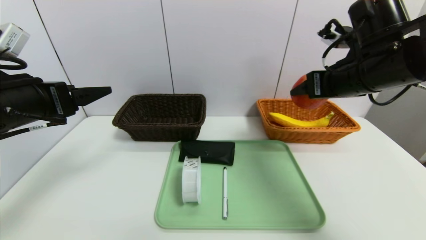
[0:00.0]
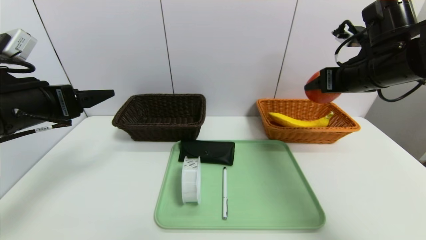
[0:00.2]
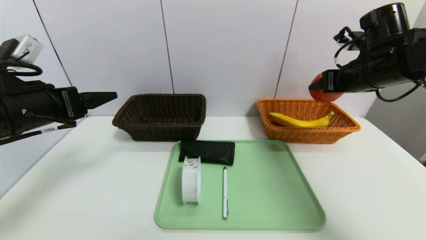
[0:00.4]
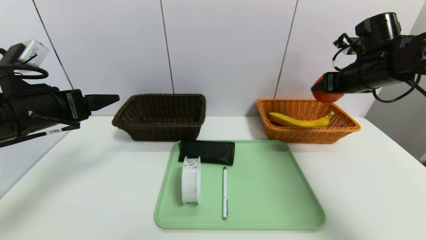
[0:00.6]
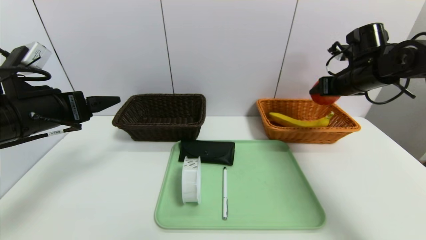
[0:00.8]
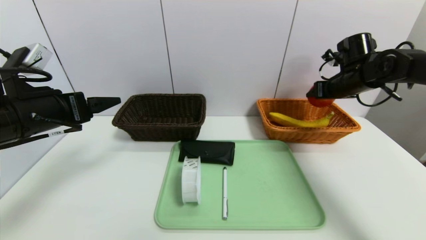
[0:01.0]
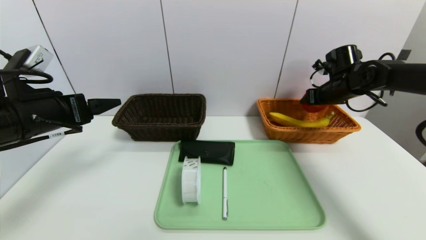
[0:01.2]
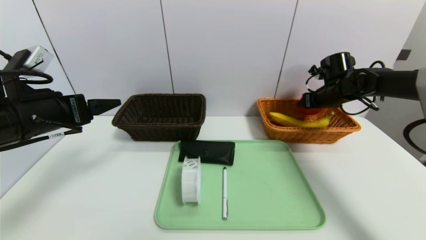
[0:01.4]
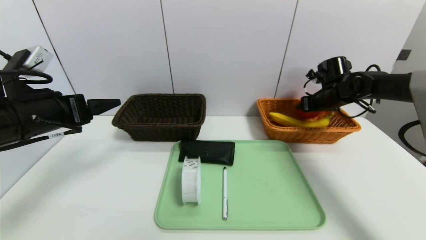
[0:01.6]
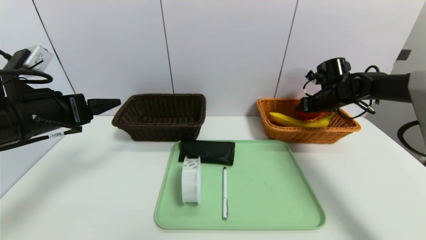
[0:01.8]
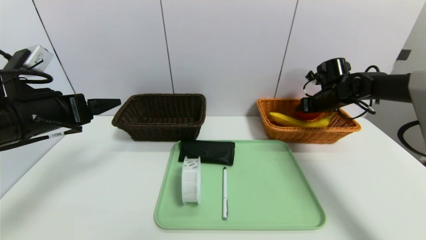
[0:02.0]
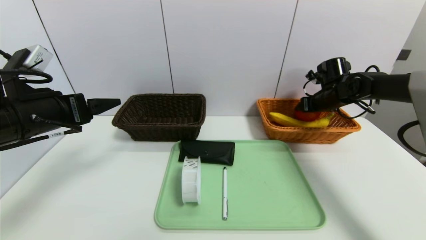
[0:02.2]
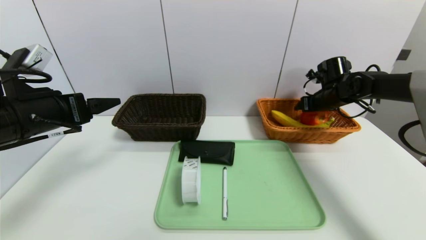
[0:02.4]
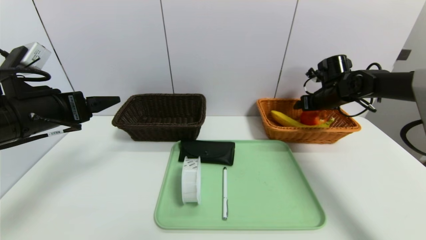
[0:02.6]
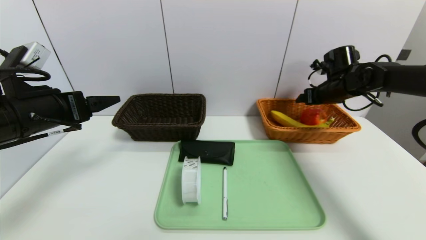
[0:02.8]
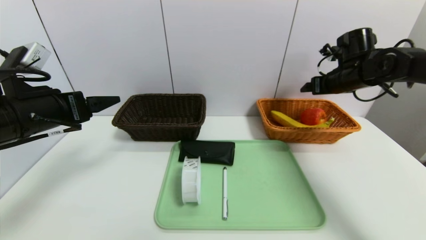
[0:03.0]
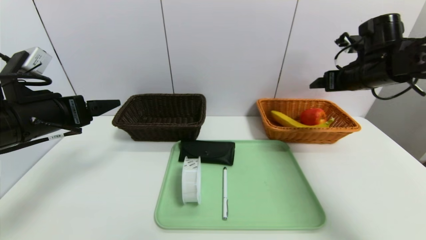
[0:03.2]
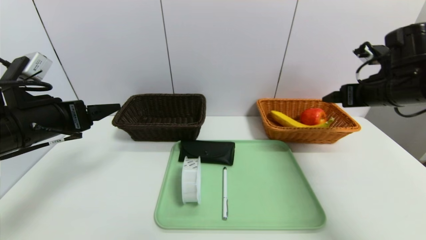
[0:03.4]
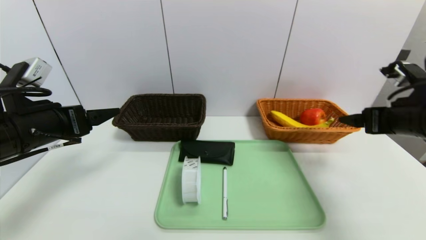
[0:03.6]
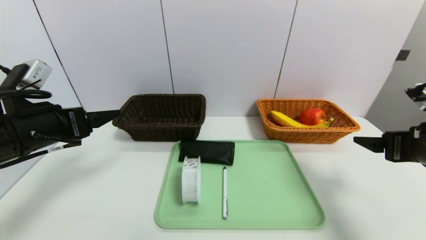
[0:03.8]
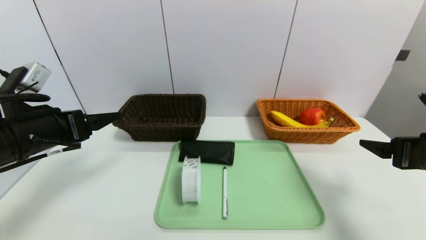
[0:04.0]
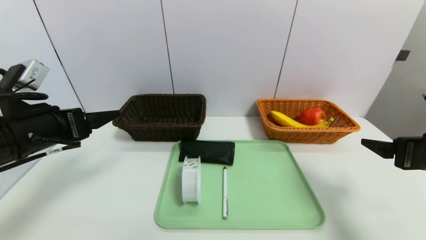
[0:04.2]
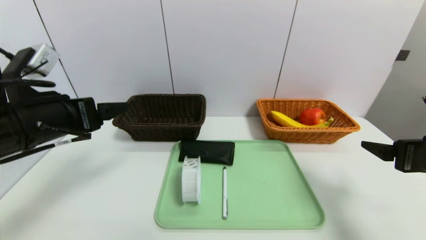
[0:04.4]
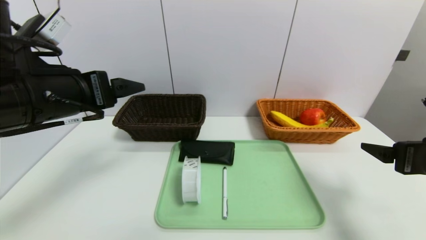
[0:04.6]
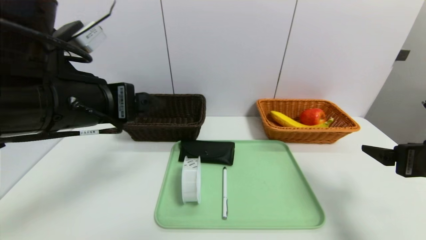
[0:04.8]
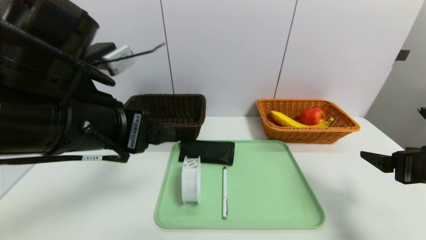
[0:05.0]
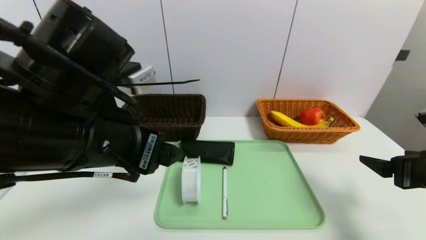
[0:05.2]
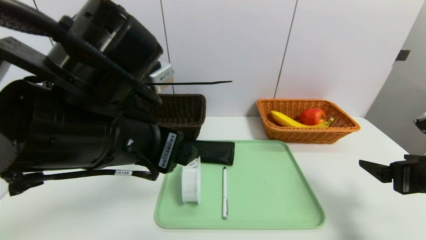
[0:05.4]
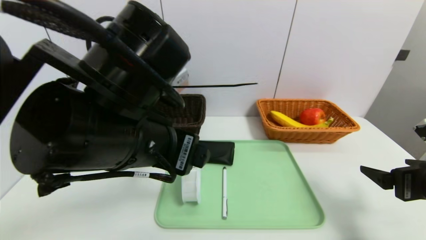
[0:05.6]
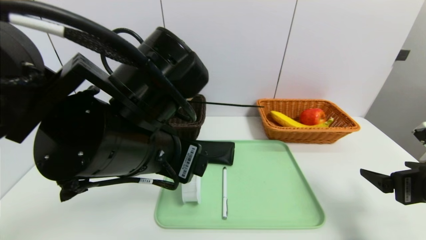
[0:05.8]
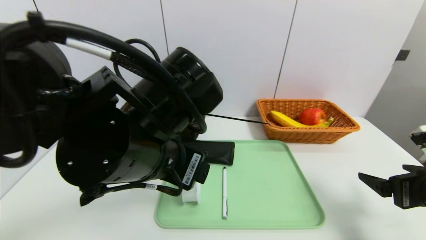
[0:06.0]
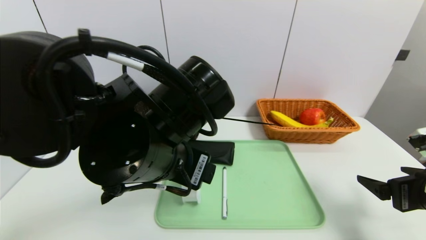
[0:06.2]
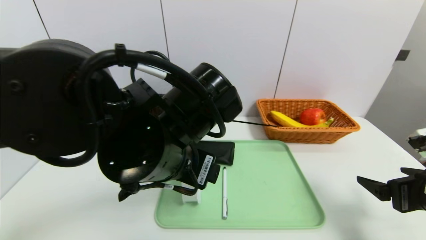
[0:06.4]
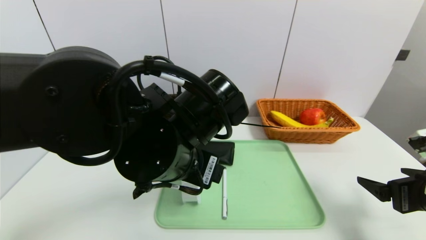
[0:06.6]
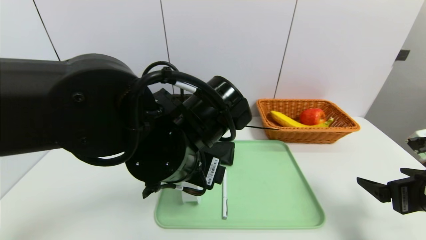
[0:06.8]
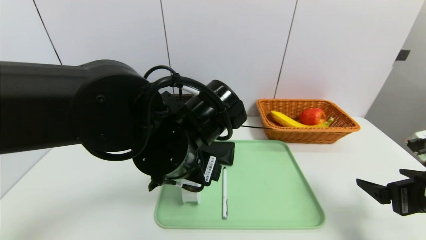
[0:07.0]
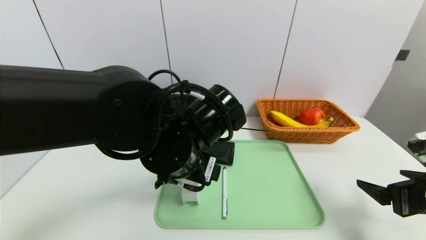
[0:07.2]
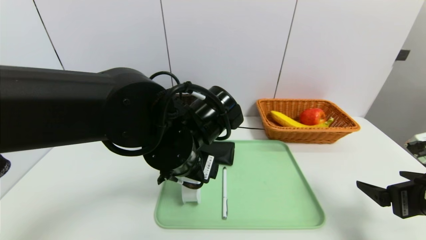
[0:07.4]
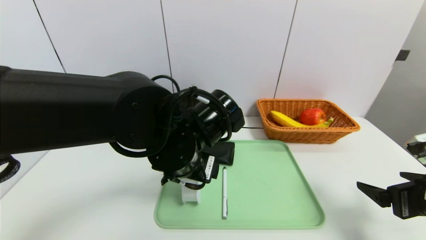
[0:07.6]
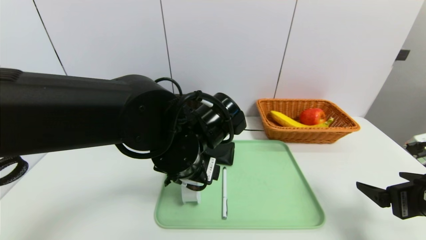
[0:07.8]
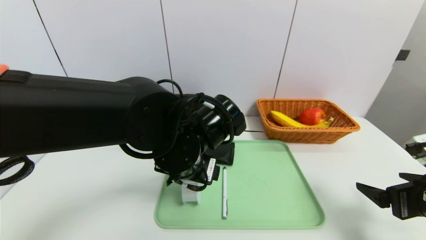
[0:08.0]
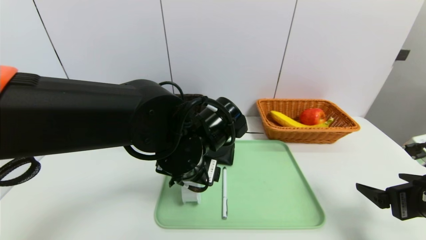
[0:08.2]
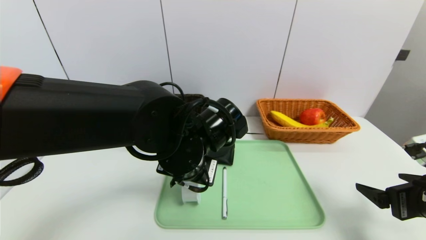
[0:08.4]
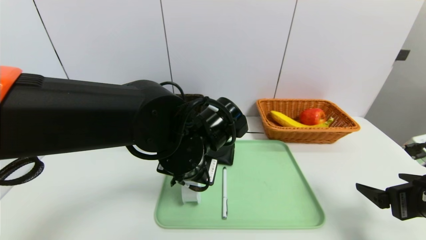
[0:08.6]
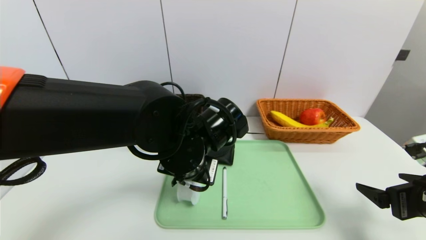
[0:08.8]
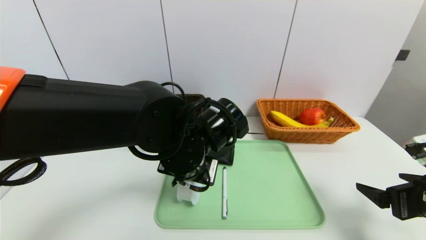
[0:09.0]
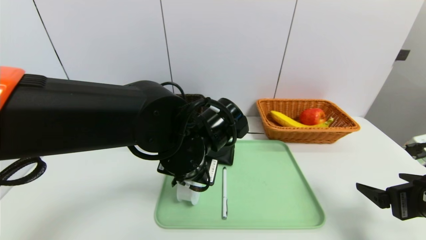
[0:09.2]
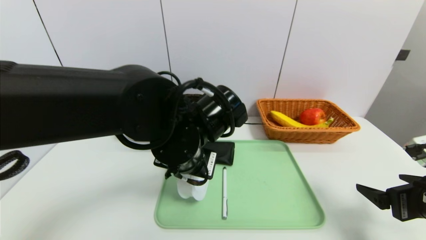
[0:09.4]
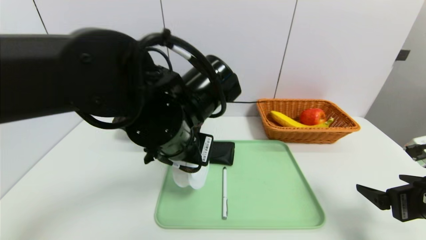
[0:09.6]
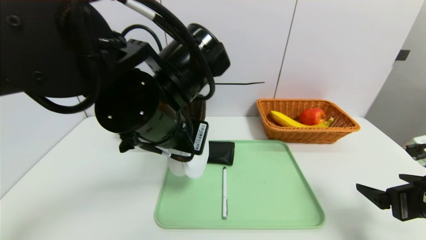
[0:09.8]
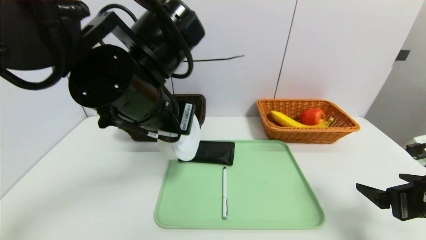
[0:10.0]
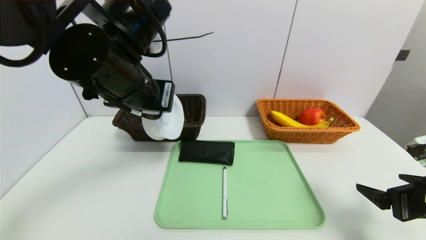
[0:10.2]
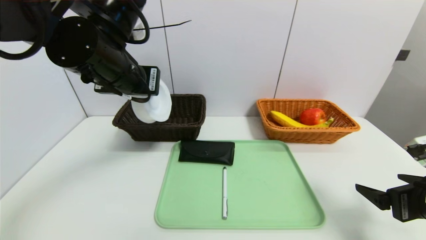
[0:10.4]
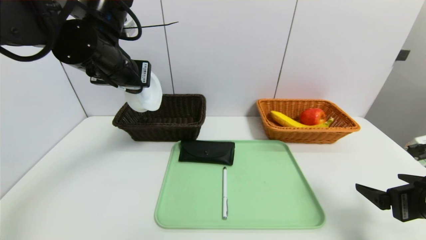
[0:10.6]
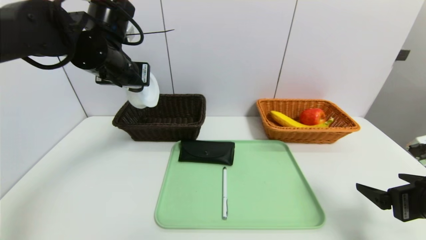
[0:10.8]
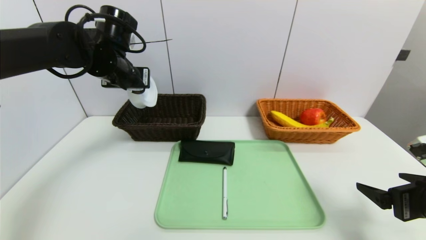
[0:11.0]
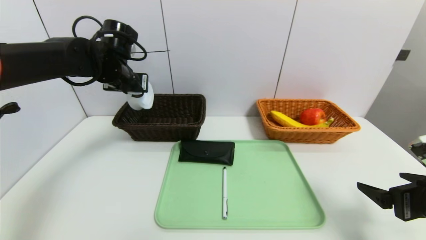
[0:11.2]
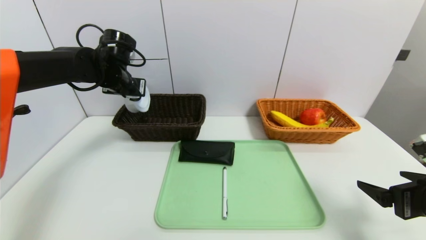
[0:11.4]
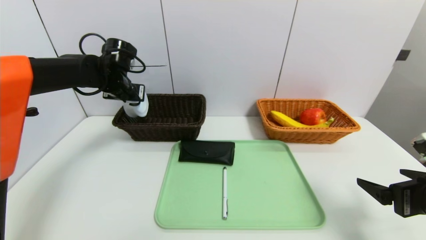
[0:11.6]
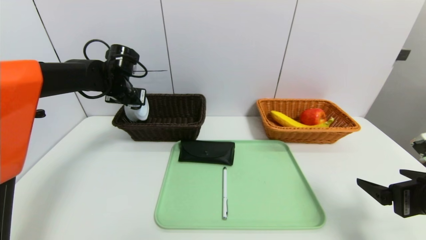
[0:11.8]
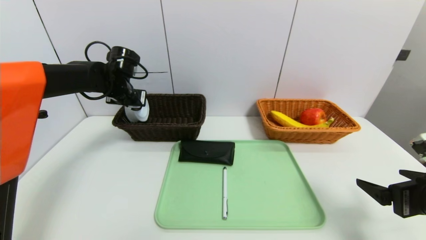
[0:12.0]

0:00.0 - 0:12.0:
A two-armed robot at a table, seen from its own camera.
Task of the whole recording: place the food in the right basket with the right gripper, and place the non food items in the left basket with the left gripper.
Step, 0:00.0 - 0:02.8: Grasp the apple and put it in the right basket.
0:00.0 - 0:01.6: The right gripper heads forward, downward and to the right, covering some 25 cm.
0:01.6 - 0:03.0: The right gripper moves upward, some 5 cm.
0:03.0 - 0:04.4: The right gripper moves backward, about 25 cm.
0:04.4 - 0:06.0: The left gripper shifts roughly 15 cm to the right.
0:06.0 - 0:07.6: The left gripper moves downward and forward, about 5 cm.
0:07.6 - 0:09.0: The left gripper closes its fingers.
0:09.0 - 0:10.4: The left gripper moves upward and to the left, roughly 15 cm.
0:10.4 - 0:12.0: The left gripper shifts approximately 20 cm forward, downward and to the left.

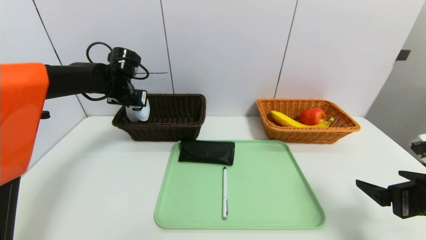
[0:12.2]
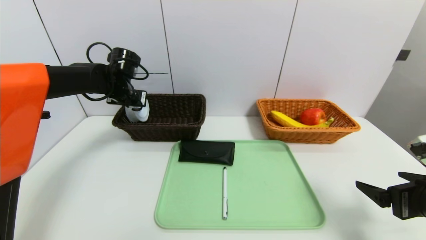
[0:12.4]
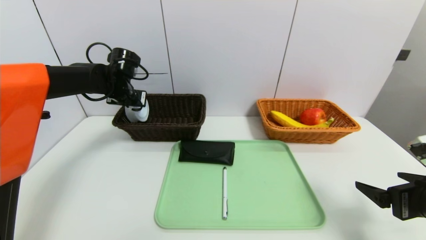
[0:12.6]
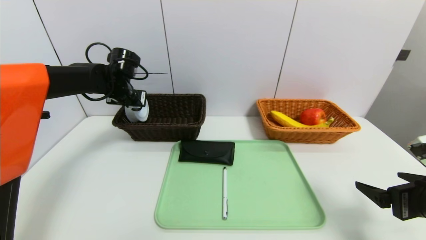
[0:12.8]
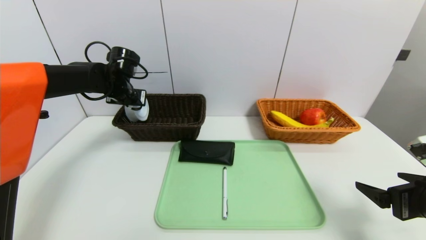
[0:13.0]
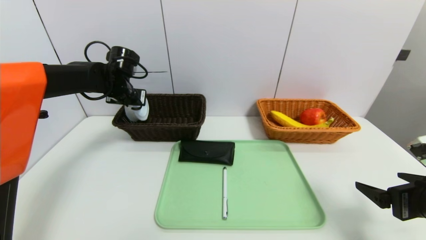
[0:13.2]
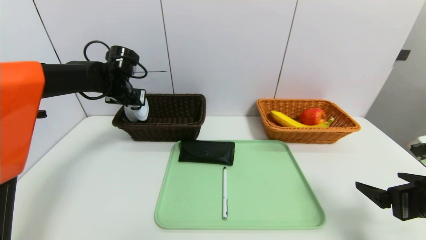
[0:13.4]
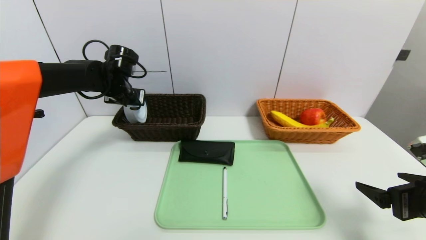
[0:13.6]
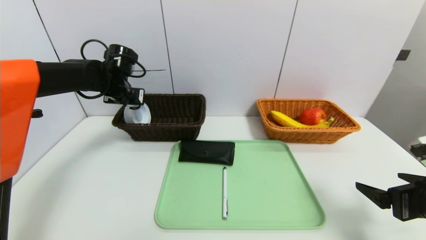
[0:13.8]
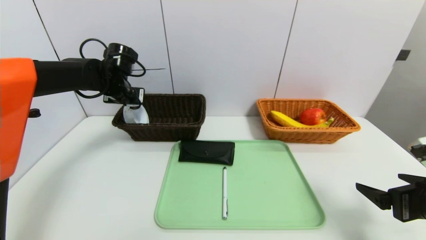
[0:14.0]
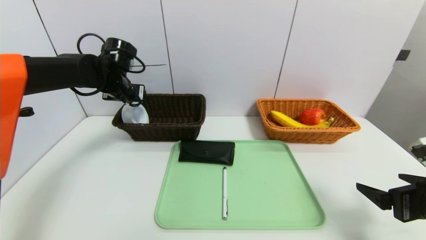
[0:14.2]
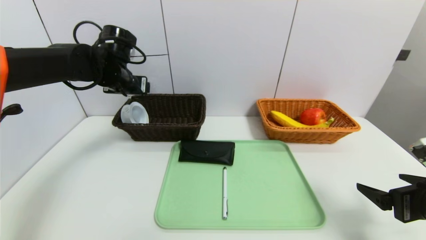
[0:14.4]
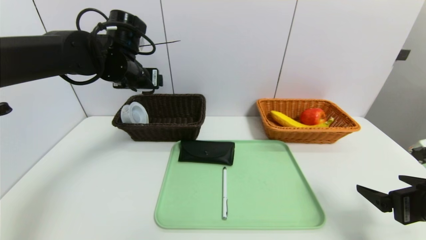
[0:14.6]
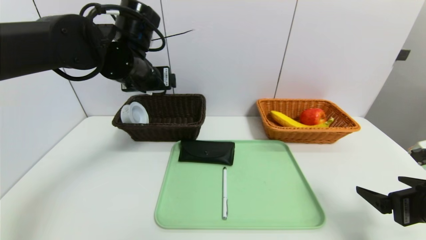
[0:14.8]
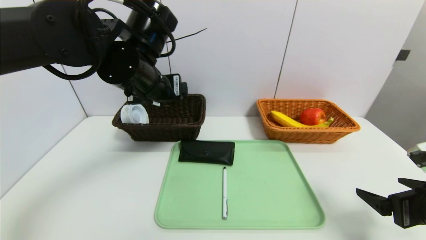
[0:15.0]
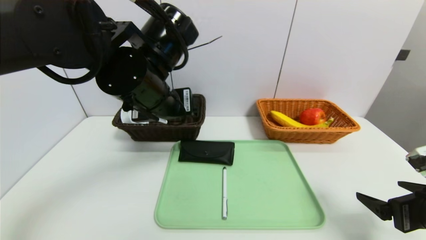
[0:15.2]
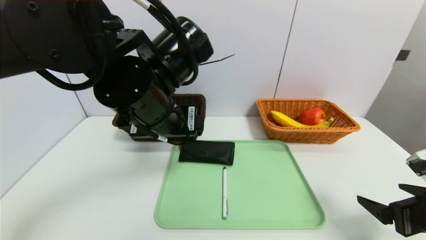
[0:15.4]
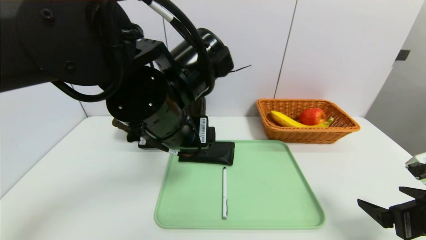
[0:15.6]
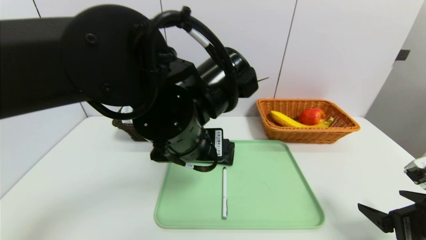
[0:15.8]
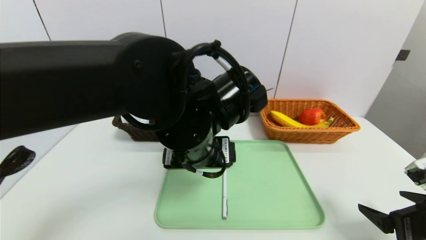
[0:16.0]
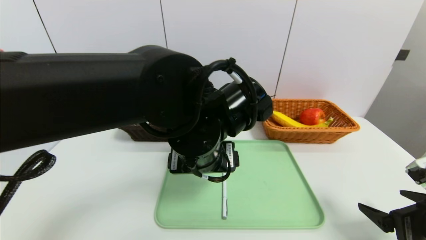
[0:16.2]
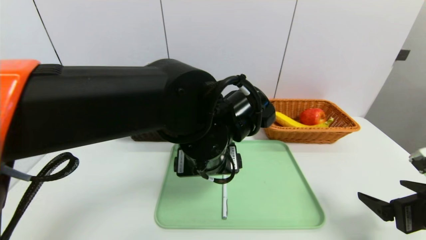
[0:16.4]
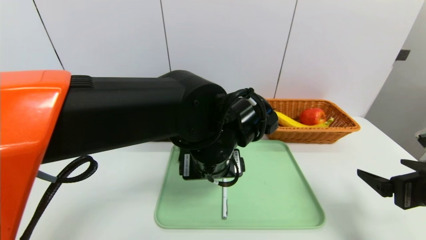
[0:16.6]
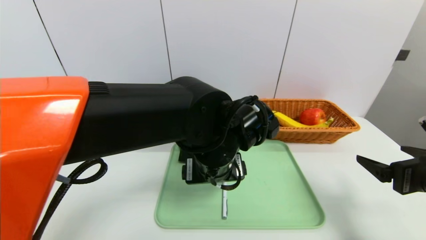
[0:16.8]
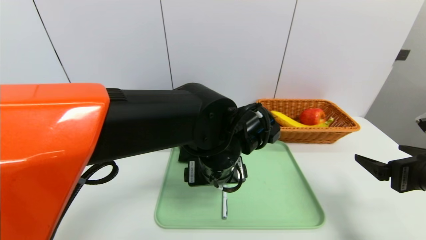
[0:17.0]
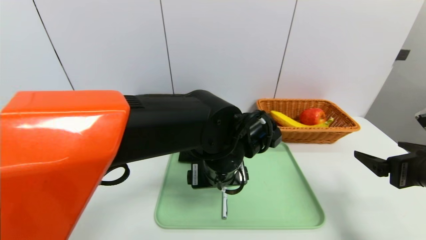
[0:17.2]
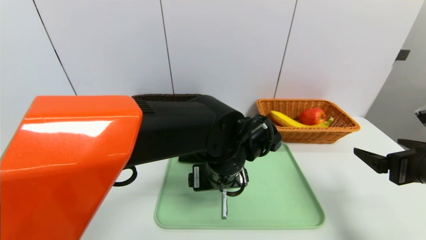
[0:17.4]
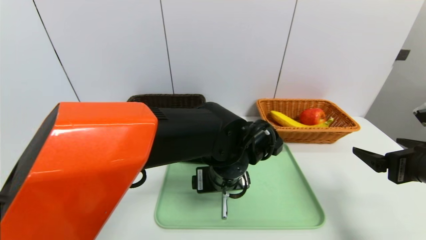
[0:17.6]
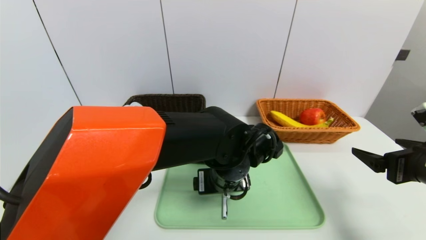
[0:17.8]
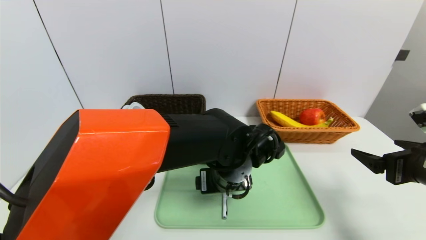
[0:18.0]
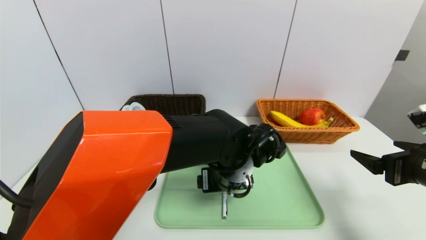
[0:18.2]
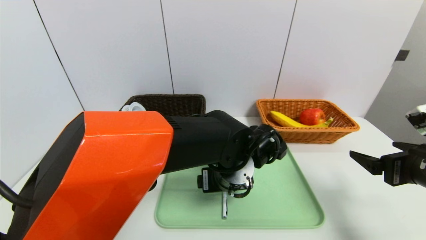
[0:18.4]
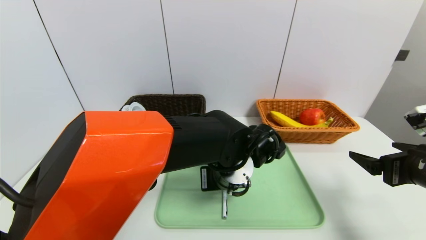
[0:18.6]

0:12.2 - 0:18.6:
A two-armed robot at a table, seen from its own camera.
Task of the whole recording: place the food in the right basket with the right gripper, and place the non food items in the left basket with the left gripper.
Step, 0:12.2 - 0:14.4: Grasp the tape and put it in the left basket.
0:12.2 - 0:13.8: Both grippers stay about where they are.
0:13.8 - 0:15.4: The left gripper shifts some 25 cm backward and to the right, and opens its fingers.
0:15.4 - 0:17.0: The left gripper travels downward and to the right by some 15 cm, while the right gripper moves roughly 5 cm.
0:17.0 - 0:18.6: The left gripper goes roughly 5 cm downward.
